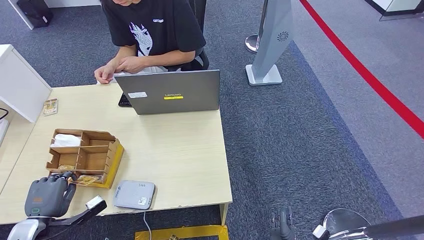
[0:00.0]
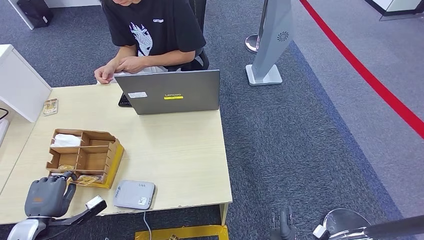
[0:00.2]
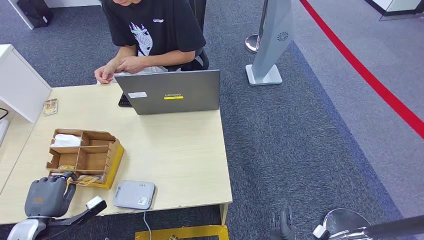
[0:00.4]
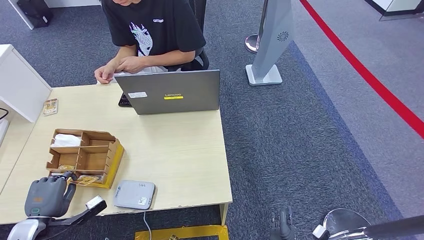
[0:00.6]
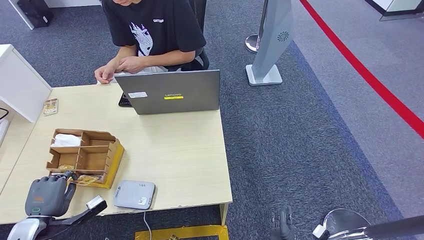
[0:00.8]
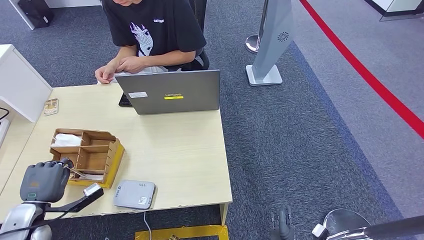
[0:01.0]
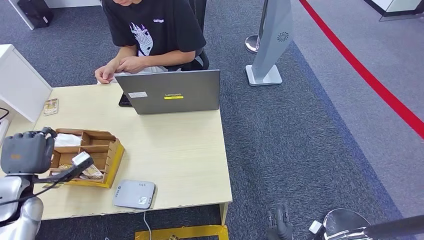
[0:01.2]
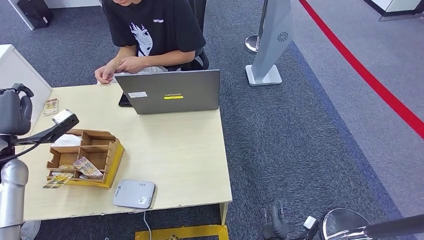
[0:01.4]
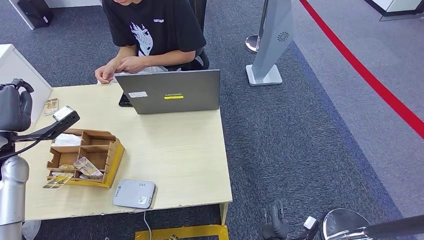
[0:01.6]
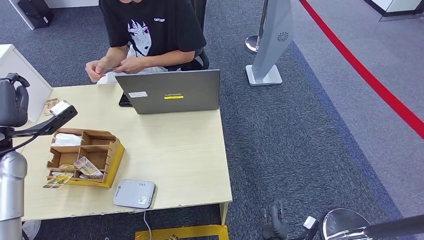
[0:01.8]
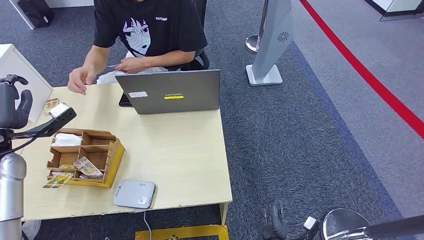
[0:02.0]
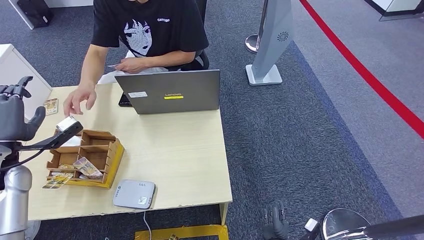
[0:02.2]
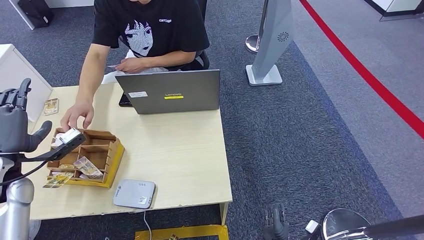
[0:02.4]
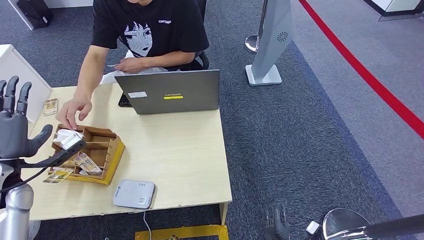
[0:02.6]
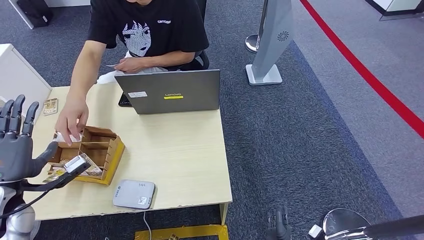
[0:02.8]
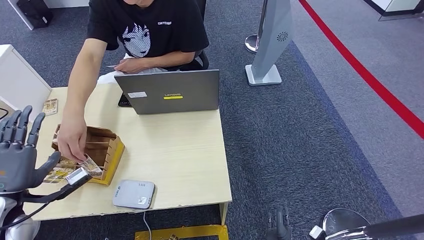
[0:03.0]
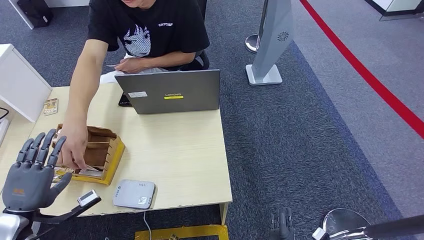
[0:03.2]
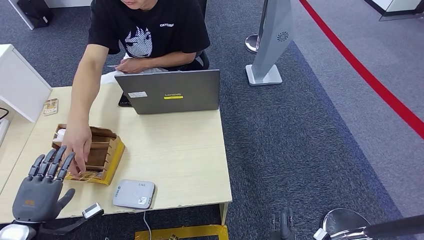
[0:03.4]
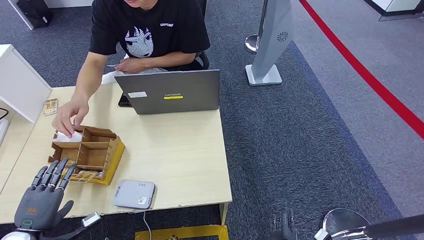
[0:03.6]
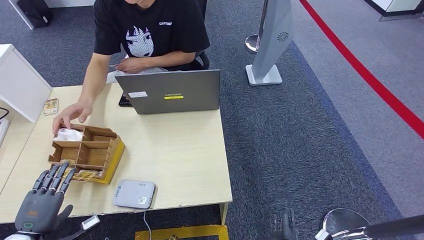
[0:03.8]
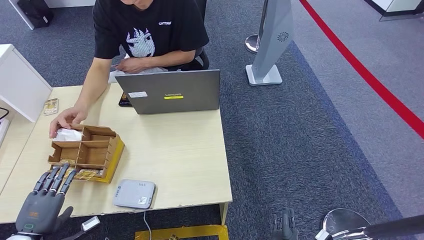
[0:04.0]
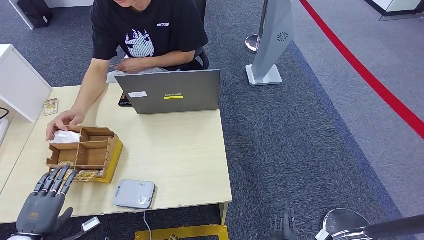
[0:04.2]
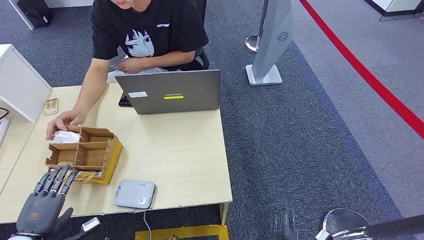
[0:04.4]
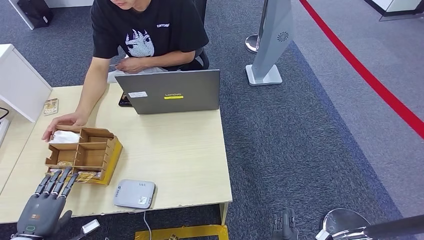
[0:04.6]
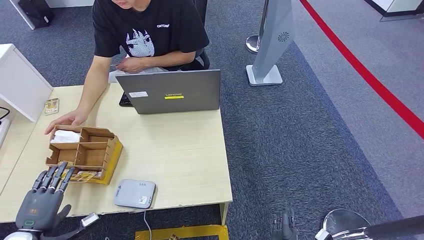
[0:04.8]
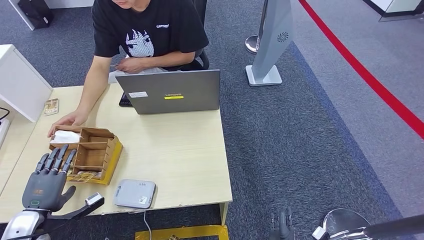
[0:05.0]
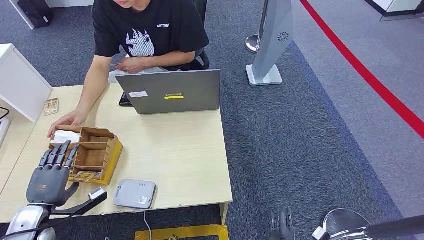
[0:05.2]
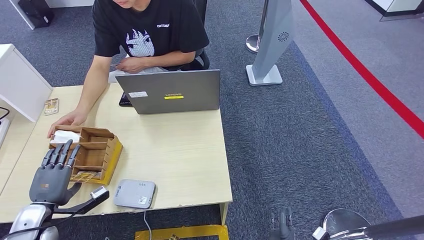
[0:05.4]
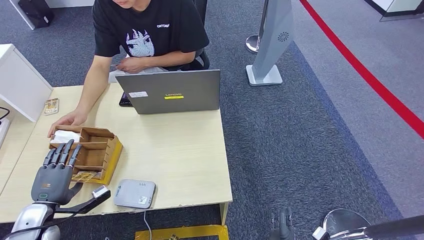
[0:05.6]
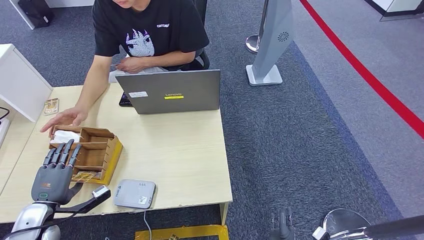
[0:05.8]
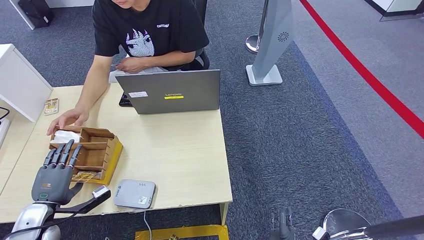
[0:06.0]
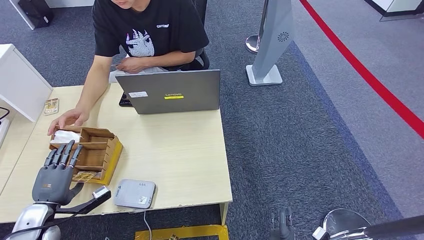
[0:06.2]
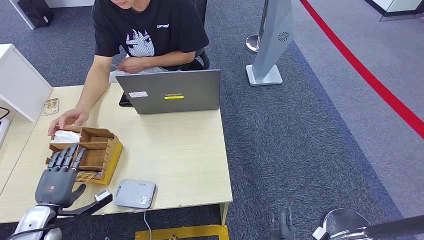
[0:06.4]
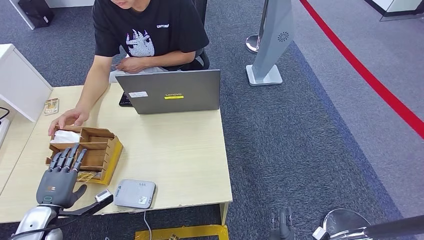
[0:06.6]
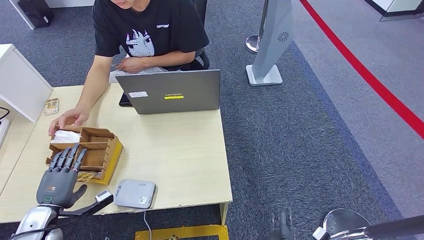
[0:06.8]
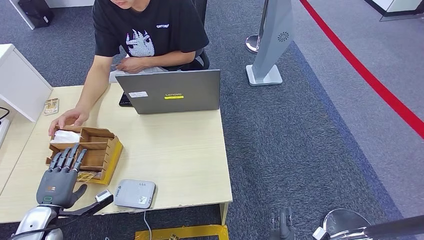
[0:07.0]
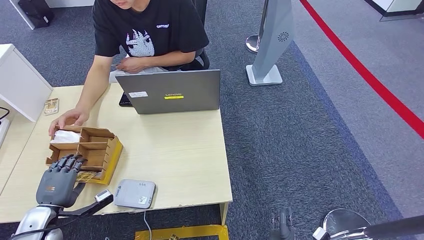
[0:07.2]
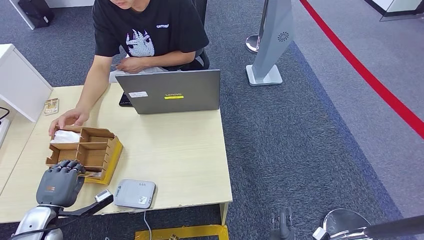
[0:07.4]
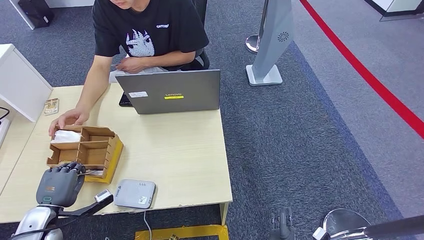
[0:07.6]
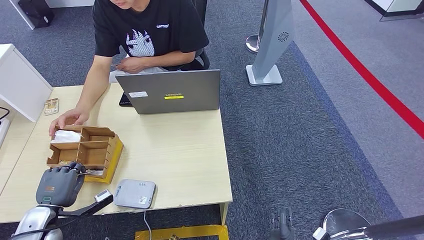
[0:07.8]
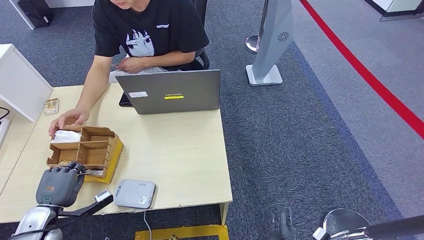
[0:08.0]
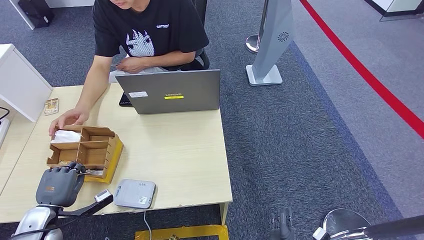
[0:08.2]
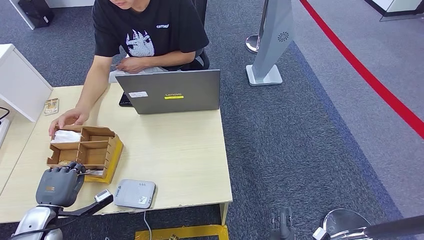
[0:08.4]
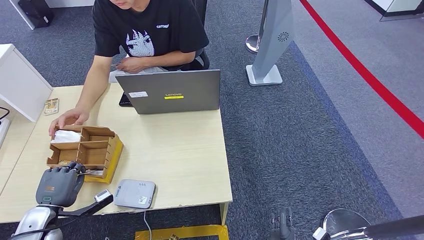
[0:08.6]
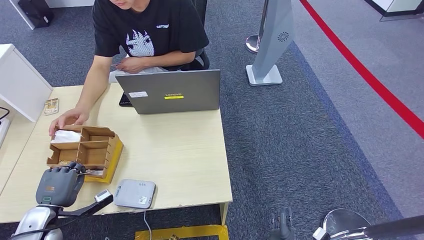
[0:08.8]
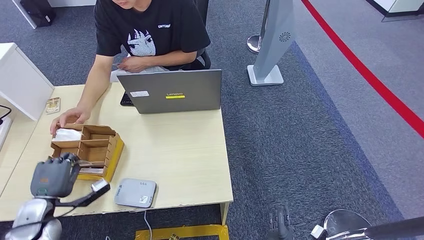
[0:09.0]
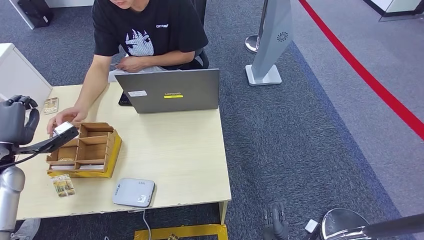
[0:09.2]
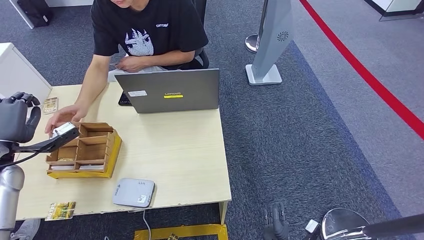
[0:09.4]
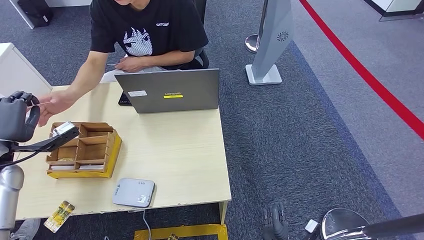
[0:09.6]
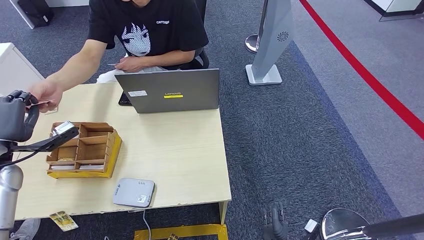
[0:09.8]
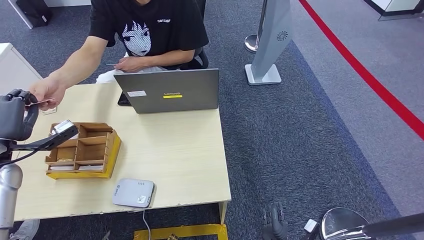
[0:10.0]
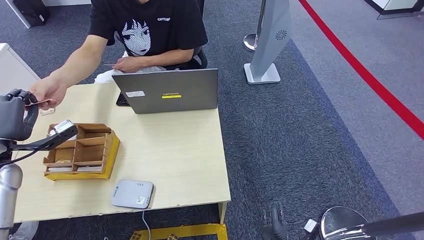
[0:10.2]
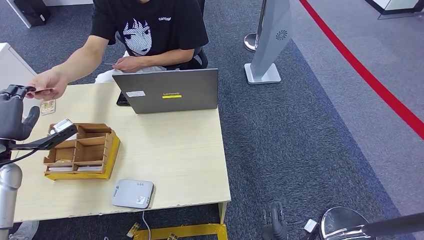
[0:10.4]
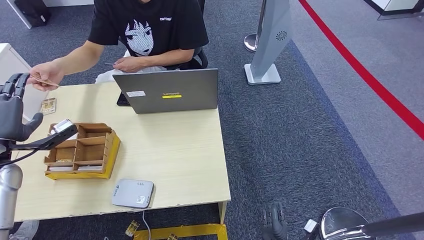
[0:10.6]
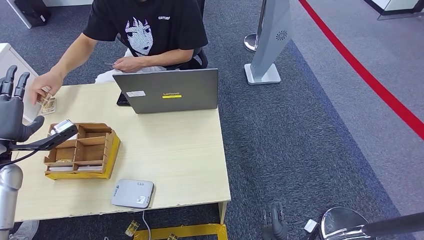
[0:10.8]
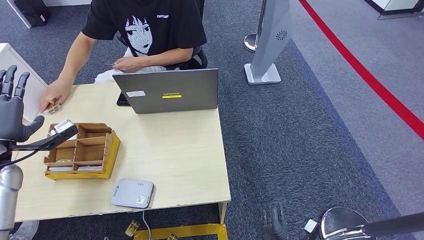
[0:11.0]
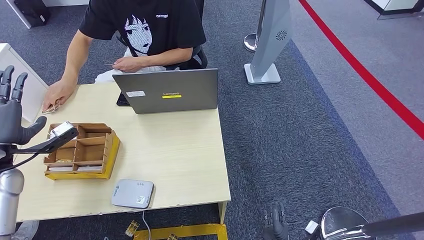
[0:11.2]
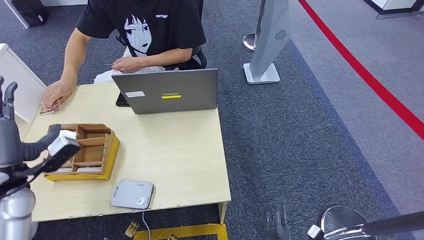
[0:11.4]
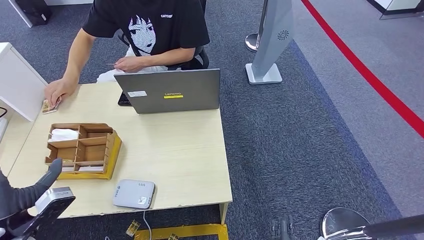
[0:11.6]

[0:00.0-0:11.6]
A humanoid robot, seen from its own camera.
Step, 0.0 to 8.2 s: Pick up the room key from the key card box.
Step, 8.4 to 11.6 s: Hand the room key to the person.
0.0 to 1.4 s: The left hand moves upward and forward, approximately 20 cm.
1.4 to 2.8 s: The left hand goes some 10 cm backward.
2.8 to 4.4 s: The left hand is displaced downward and backward by approximately 15 cm.
4.4 to 5.8 s: The left hand is displaced forward by some 5 cm.
5.8 to 8.8 s: Neither hand changes place.
10.2 to 11.6 s: The left hand shifts approximately 15 cm backward and to the right.

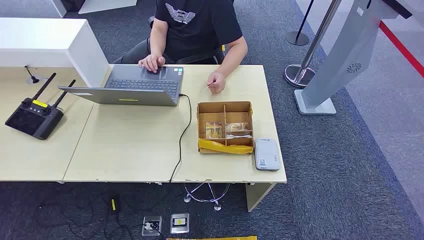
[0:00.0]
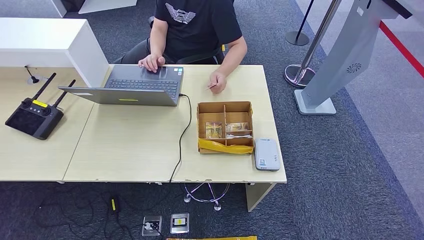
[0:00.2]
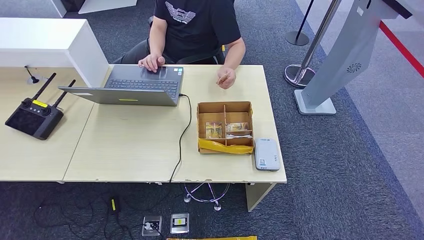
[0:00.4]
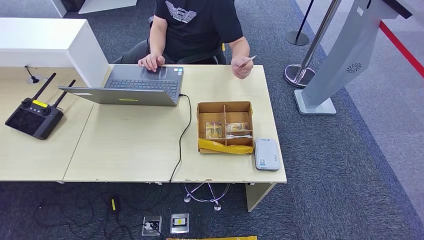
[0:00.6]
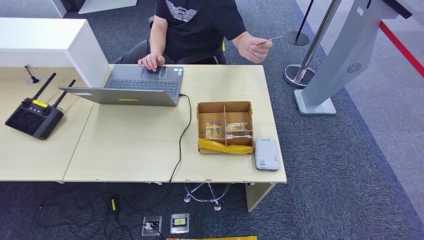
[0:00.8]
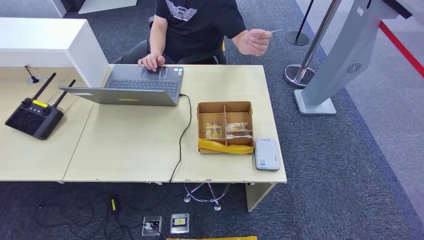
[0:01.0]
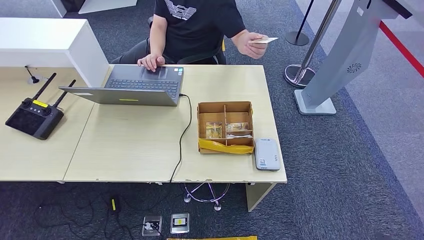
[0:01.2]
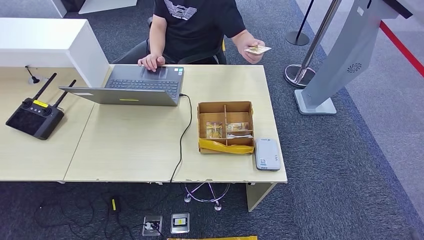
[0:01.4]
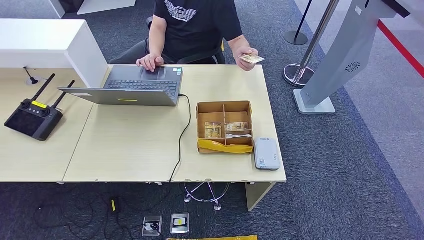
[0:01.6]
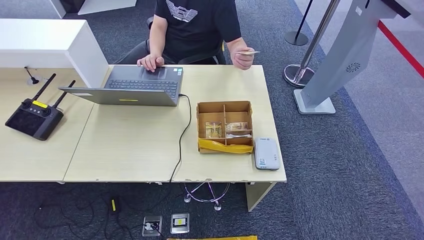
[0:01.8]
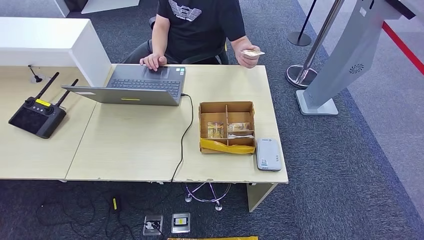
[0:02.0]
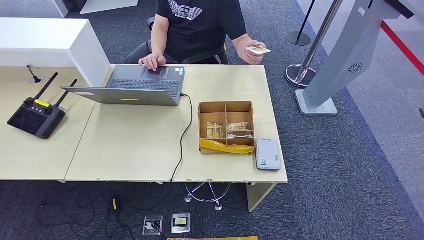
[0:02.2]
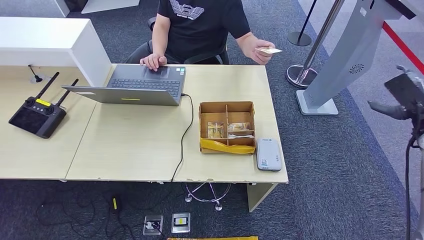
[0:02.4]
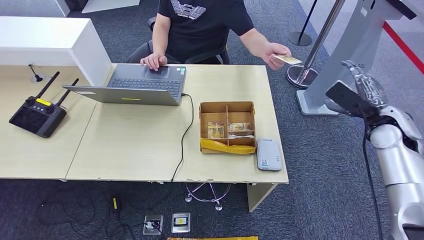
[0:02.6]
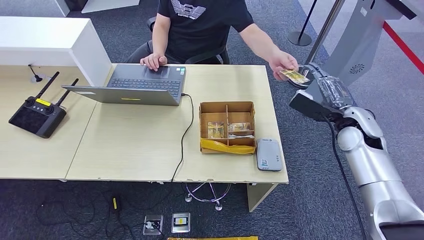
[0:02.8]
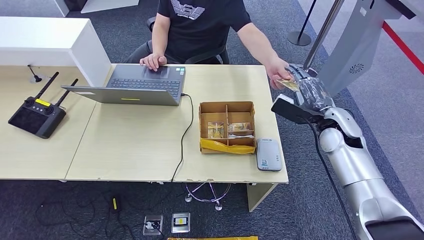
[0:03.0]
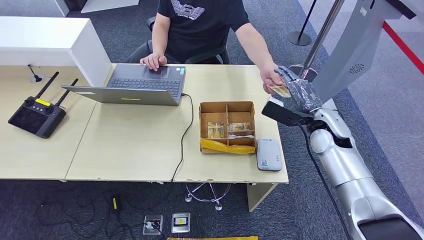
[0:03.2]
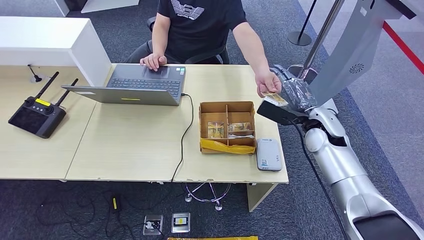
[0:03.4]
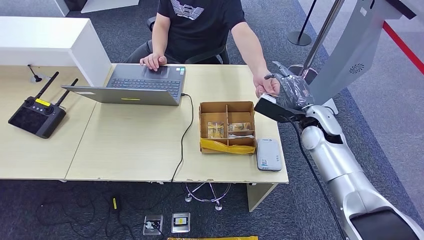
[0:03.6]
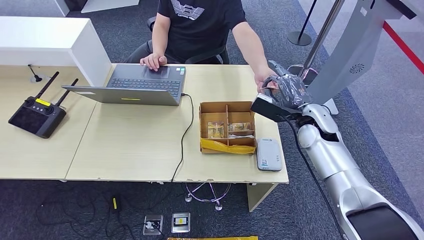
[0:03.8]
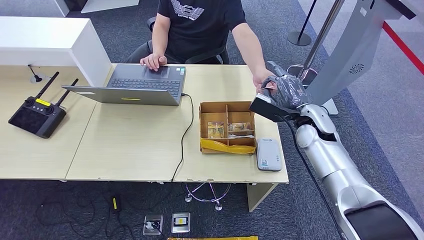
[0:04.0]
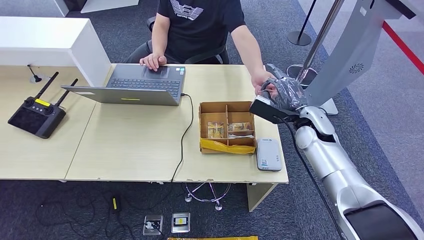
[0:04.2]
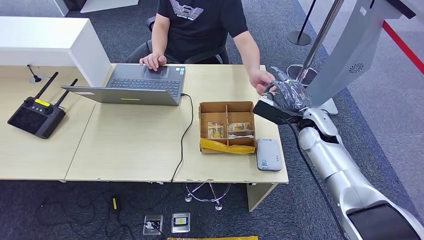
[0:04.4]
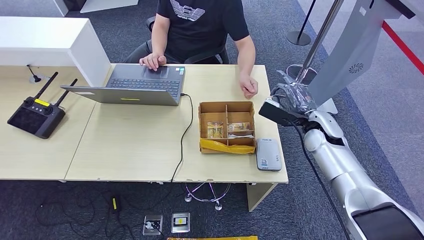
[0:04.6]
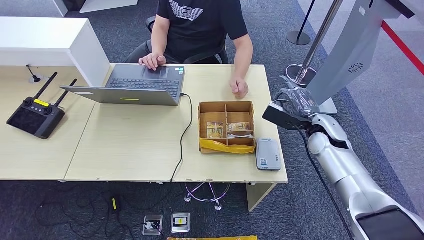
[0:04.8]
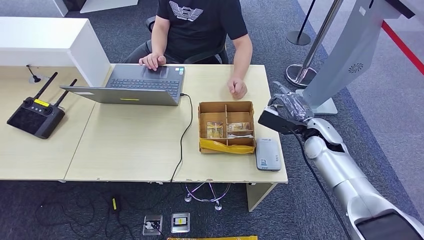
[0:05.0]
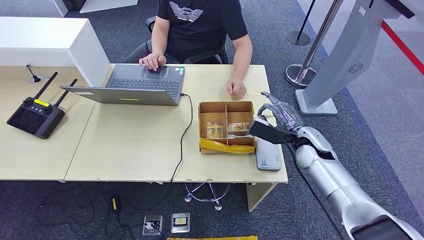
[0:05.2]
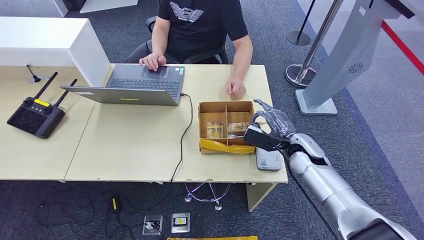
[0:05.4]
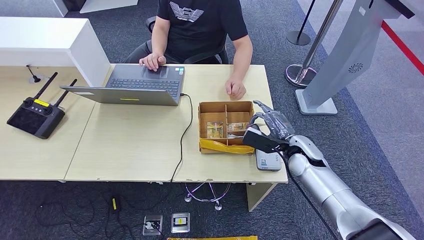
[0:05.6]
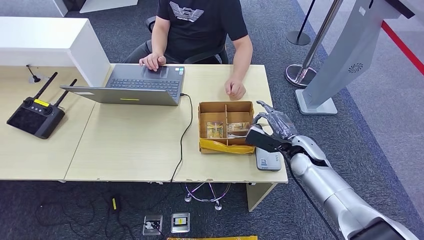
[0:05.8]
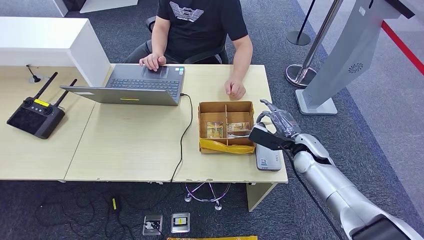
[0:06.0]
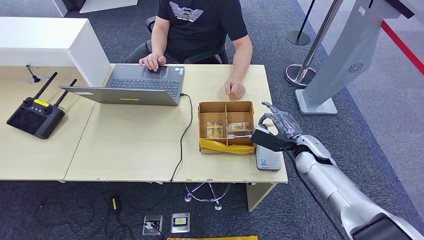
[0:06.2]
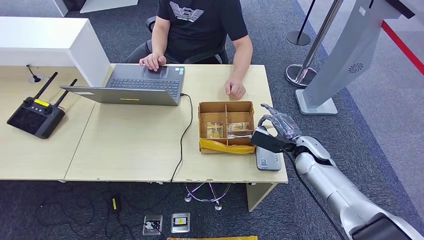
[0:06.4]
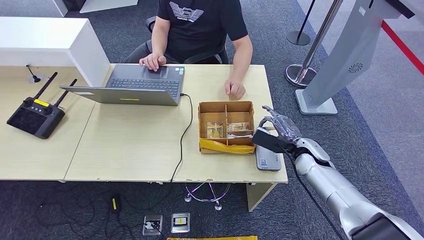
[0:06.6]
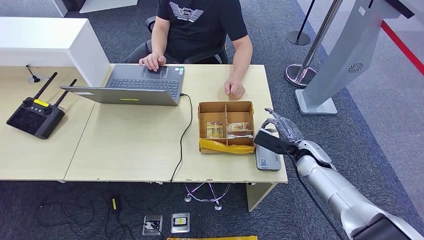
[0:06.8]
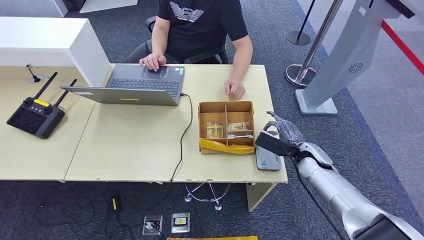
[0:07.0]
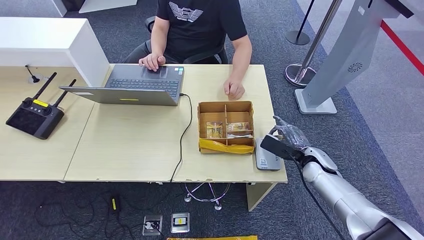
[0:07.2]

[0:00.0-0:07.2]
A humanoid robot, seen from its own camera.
Step, 0.0 to 4.4 s: Take the ID card from the person's hand.
1.4 to 2.8 s: The right hand moves forward, upward and to the left, some 40 cm.
2.8 to 4.4 s: The right hand moves to the left, approximately 10 cm.
4.4 to 5.8 s: The right hand shifts some 5 cm downward.
5.8 to 7.2 s: The right hand shifts by some 5 cm.
